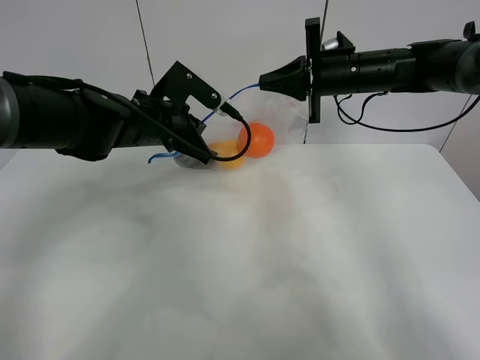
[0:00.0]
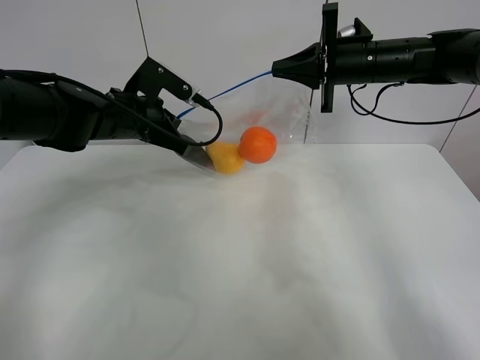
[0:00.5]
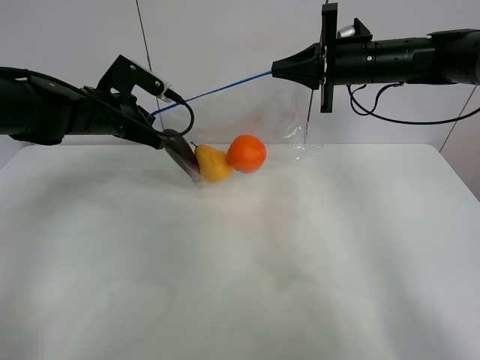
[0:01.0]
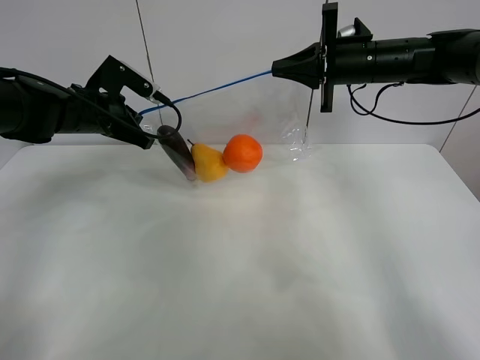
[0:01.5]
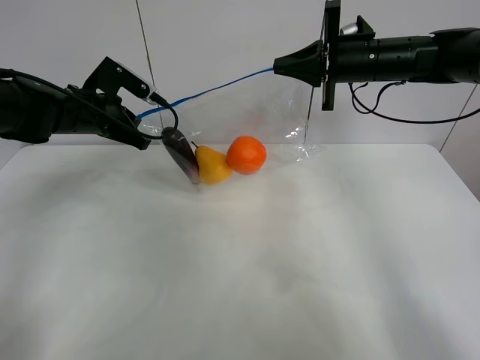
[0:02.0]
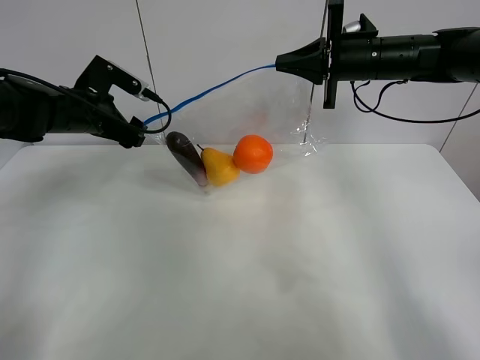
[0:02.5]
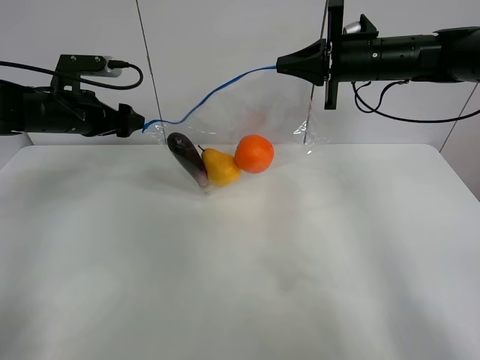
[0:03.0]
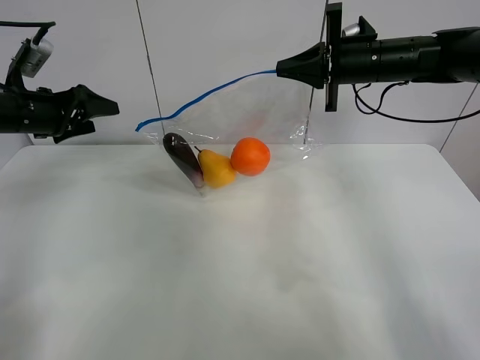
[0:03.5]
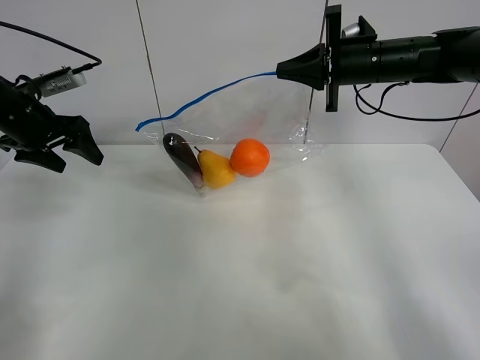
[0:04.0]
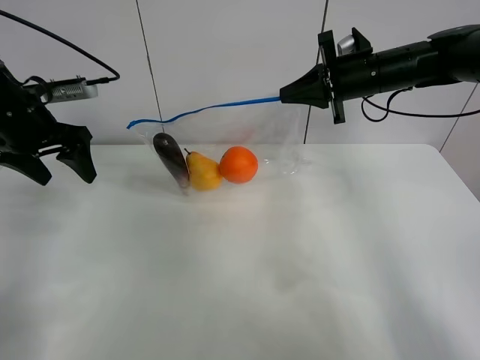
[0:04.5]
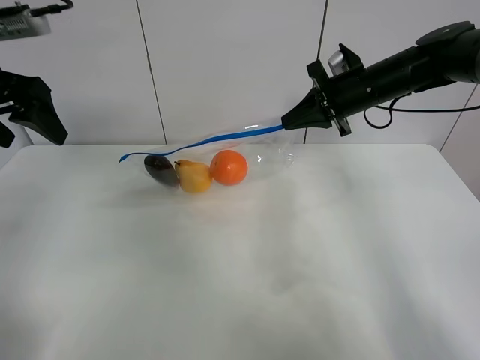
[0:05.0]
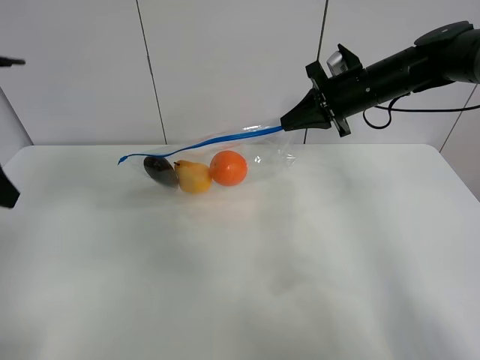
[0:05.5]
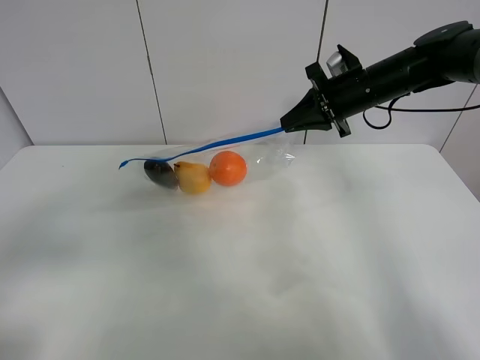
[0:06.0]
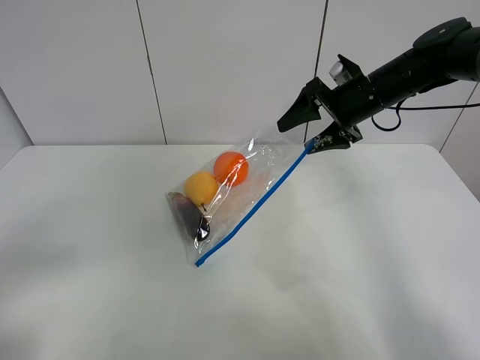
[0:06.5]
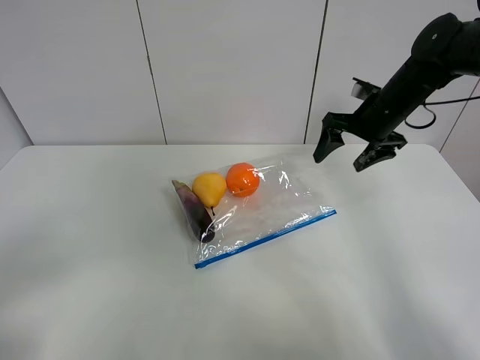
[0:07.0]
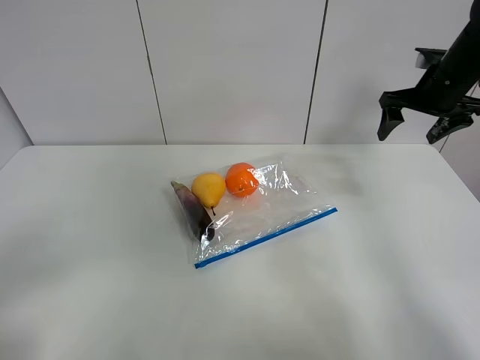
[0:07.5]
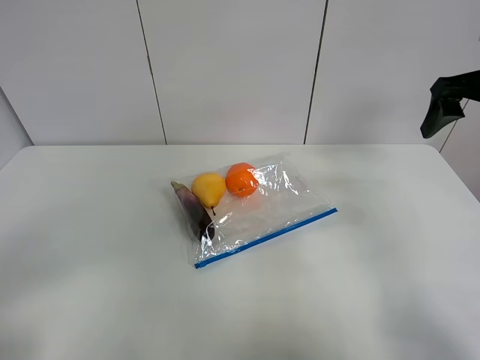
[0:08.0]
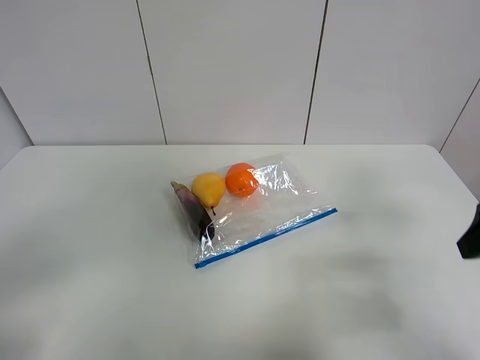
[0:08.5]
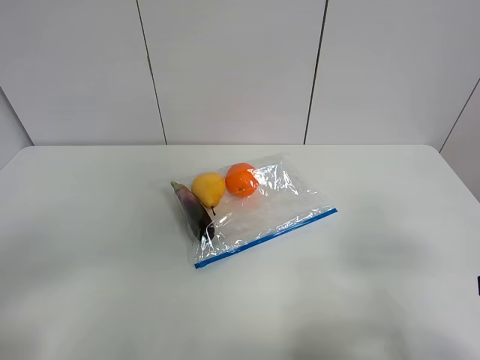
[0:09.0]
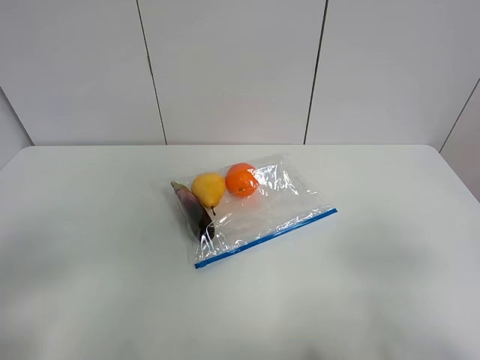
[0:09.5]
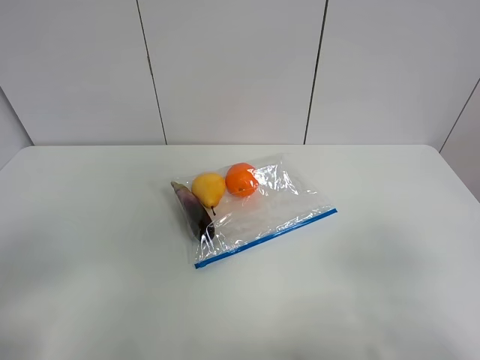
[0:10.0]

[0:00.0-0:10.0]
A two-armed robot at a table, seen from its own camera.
Step, 0:00.0 to 0:02.0: Pull the fruit bag with left gripper.
0:00.0 to 0:02.0: The left gripper heads to the left, covering some 10 cm, and opens.
0:02.0 to 0:04.0: The left gripper goes roughly 10 cm to the left, and opens its fingers.
0:04.0 to 0:06.0: The left gripper is displaced backward by about 30 cm.
0:06.0 to 0:08.0: The left gripper heads backward, covering approximately 10 cm; the right gripper is displaced to the right, backward and upward by roughly 20 cm, and opens up.
0:08.0 to 0:10.0: The right gripper travels backward by about 30 cm.
